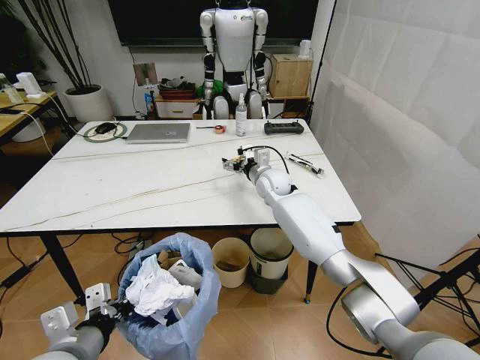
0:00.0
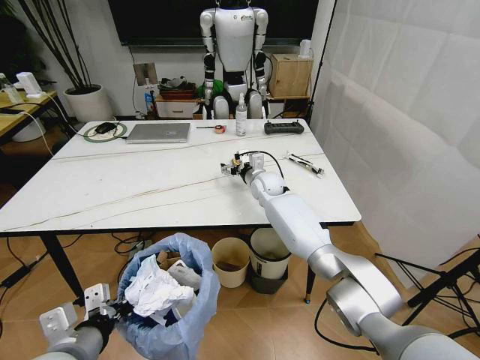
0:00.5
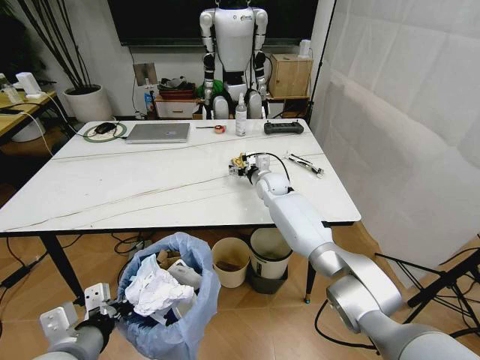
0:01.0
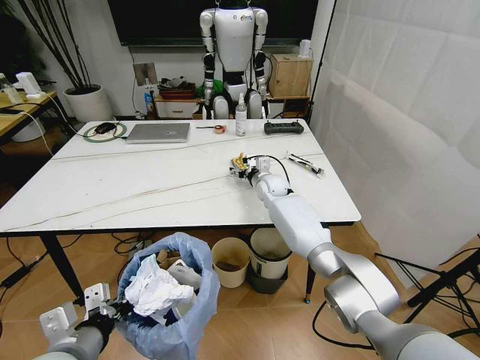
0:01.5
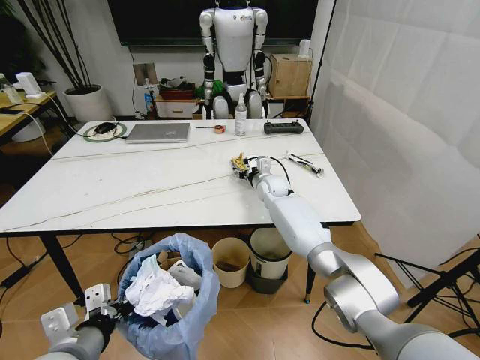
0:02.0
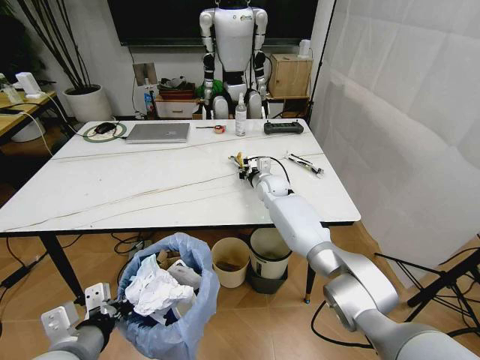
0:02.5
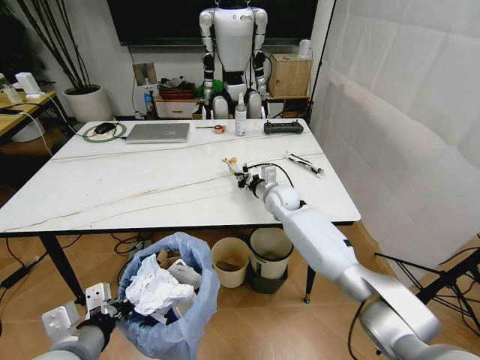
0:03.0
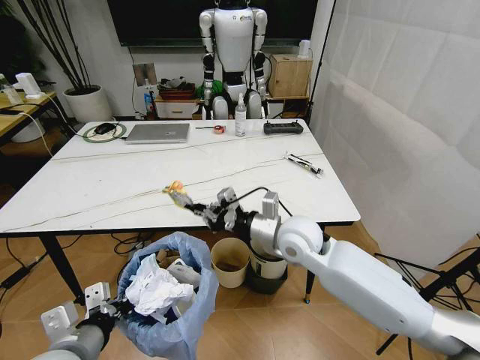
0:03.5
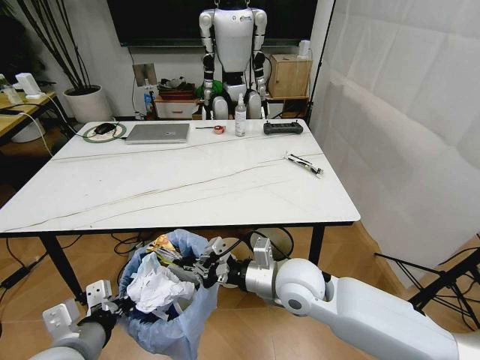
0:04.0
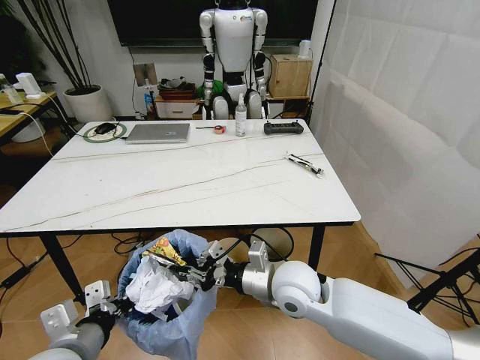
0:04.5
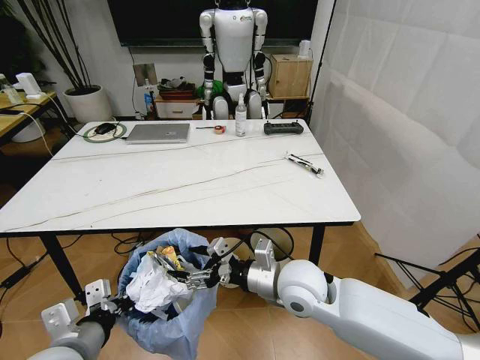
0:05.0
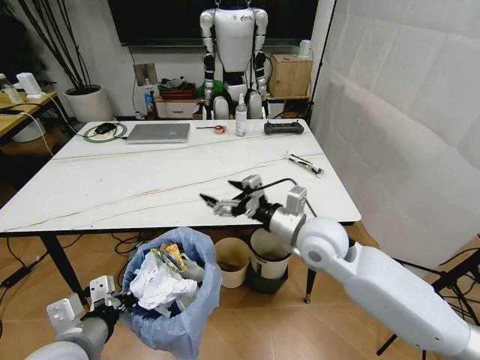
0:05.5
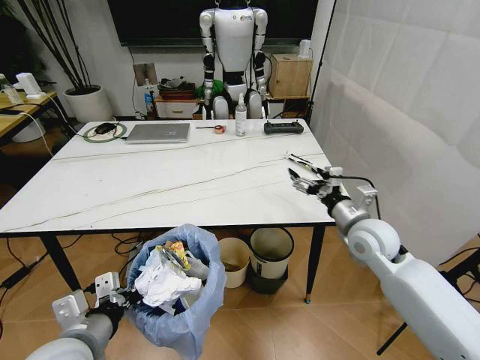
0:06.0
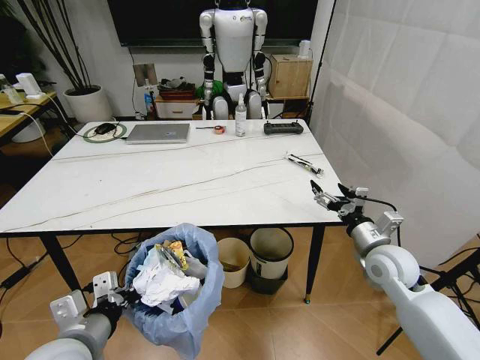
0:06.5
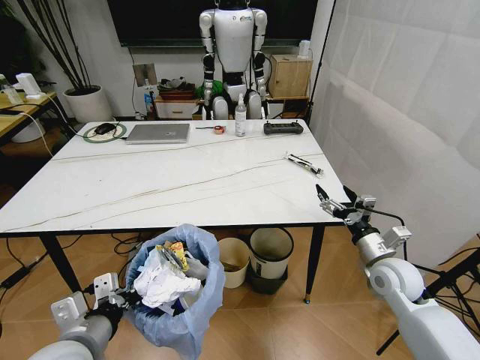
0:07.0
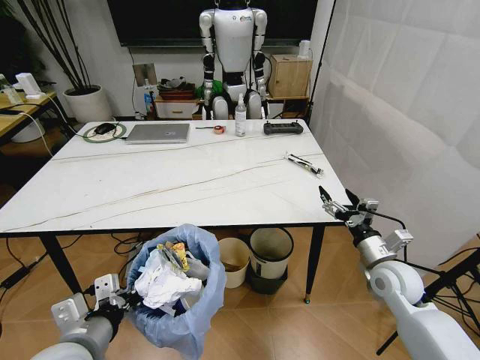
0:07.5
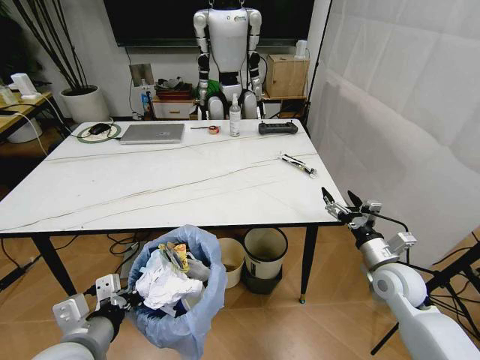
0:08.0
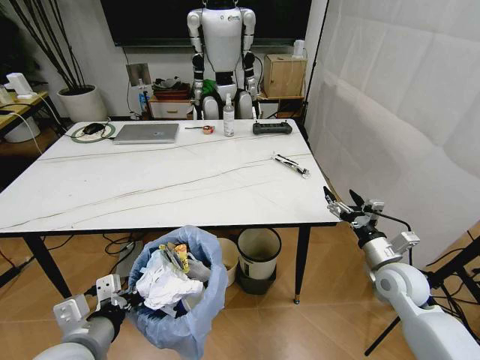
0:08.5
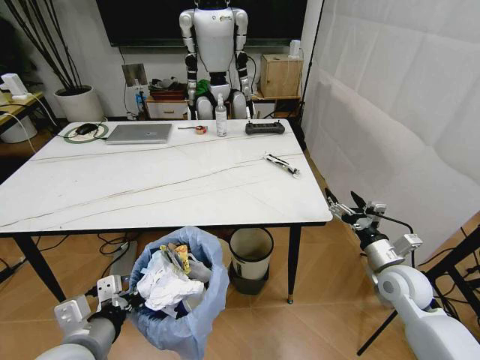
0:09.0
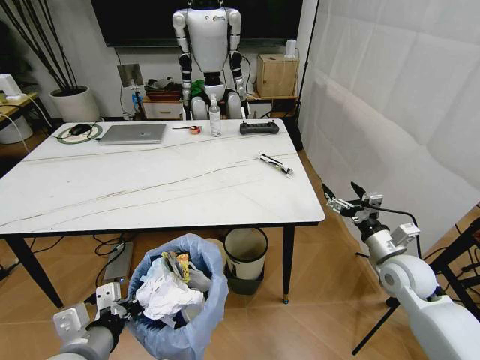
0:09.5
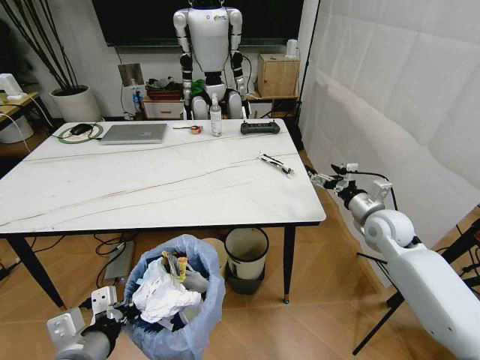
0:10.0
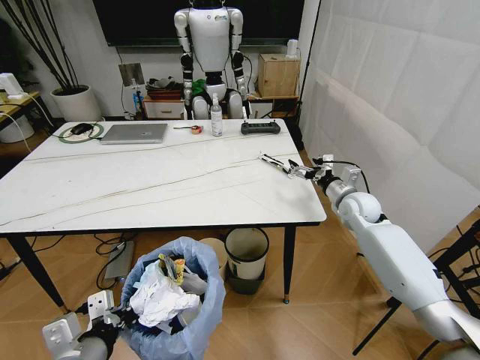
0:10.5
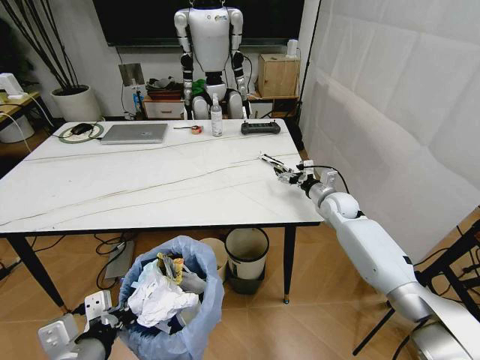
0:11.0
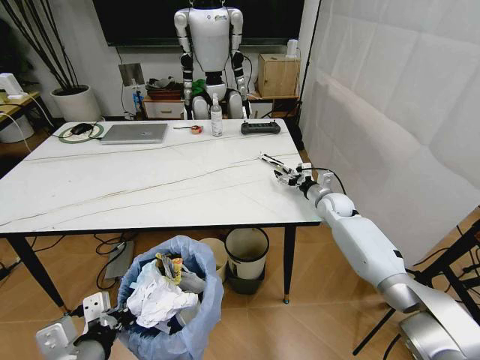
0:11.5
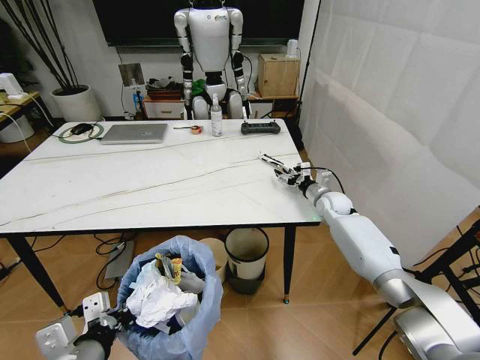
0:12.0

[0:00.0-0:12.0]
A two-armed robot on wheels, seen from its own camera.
Task of the whole recording: Pick up the trash bin and place the trash from the table into it.
0:00.0 to 0:02.0: The right gripper shifts approximately 5 cm downward.
0:02.0 to 0:04.0: The right gripper goes about 30 cm backward, and closes up.
0:04.0 to 0:06.0: The right gripper goes roughly 20 cm to the right and forward, and opens up.
0:06.0 to 0:08.0: The right gripper goes some 10 cm downward, to the right and backward.
0:08.0 to 0:10.0: The right gripper is displaced forward and upward by approximately 15 cm.
0:10.0 to 0:12.0: The right gripper is displaced forward, downward and to the left by approximately 15 cm.

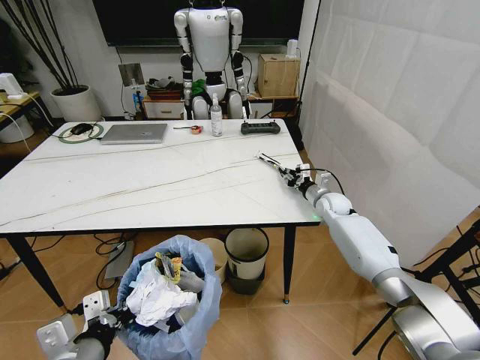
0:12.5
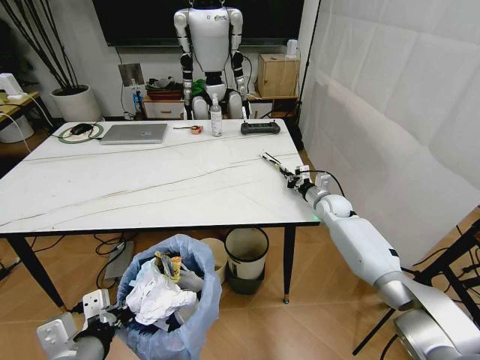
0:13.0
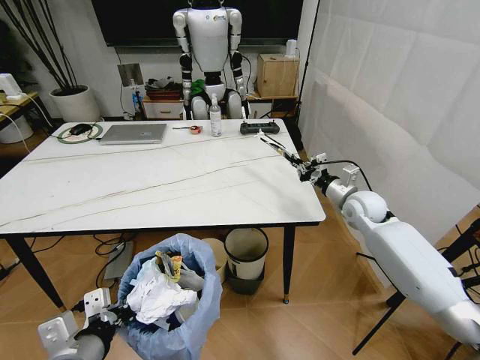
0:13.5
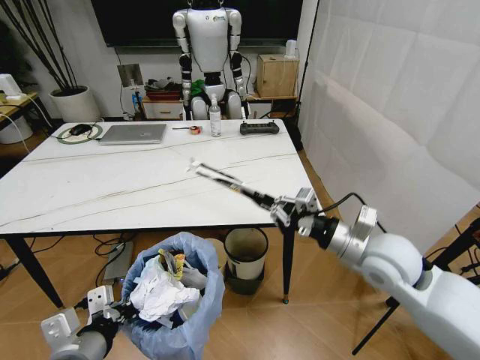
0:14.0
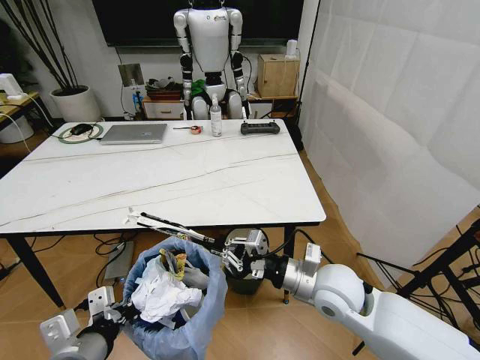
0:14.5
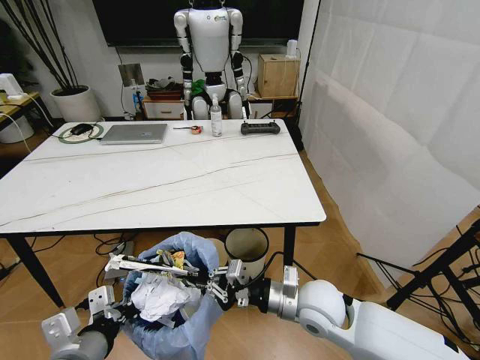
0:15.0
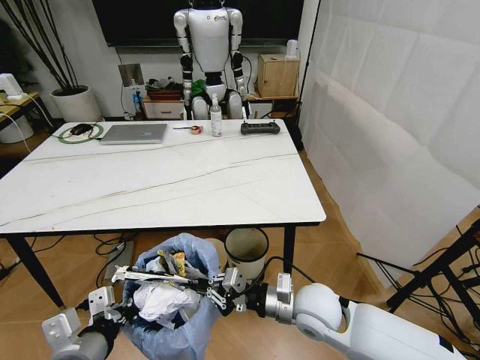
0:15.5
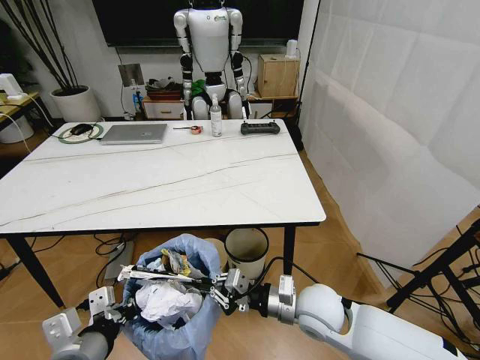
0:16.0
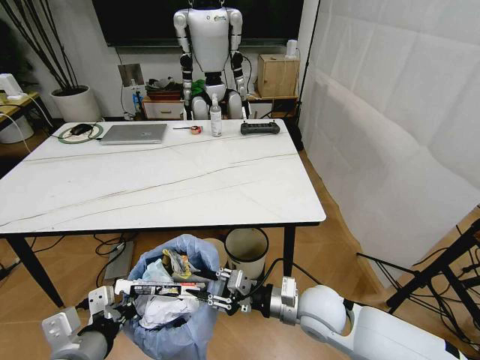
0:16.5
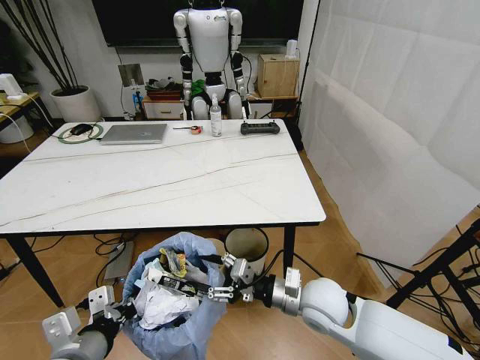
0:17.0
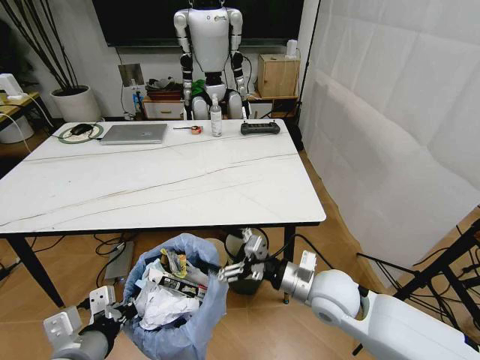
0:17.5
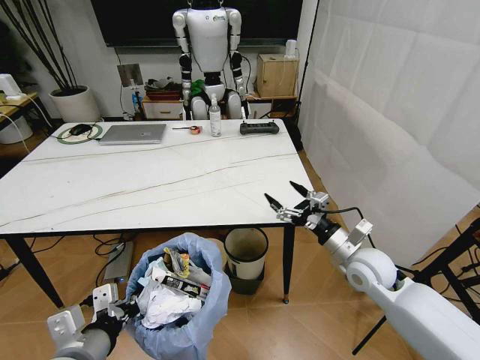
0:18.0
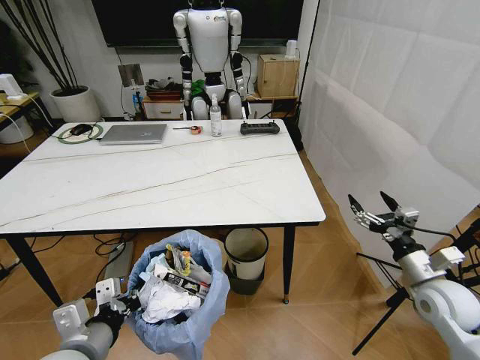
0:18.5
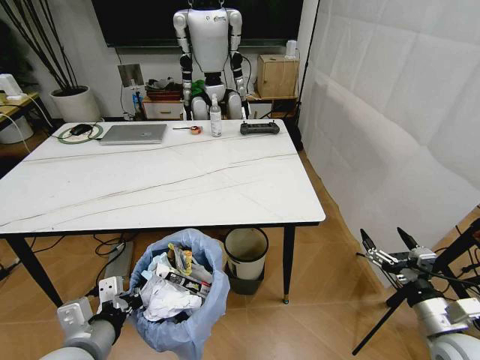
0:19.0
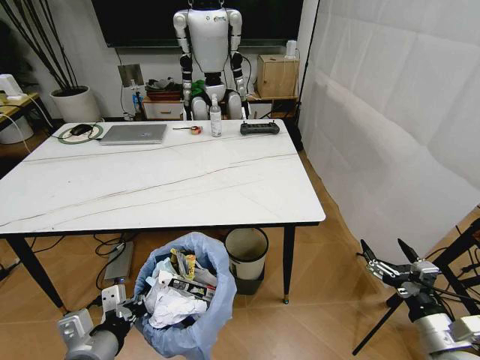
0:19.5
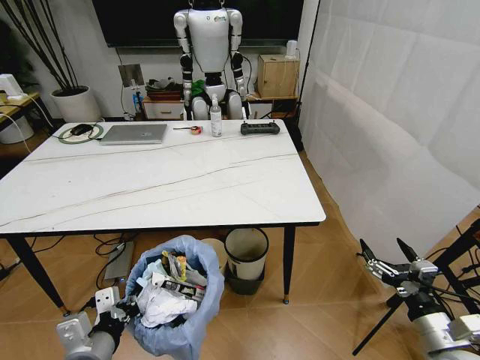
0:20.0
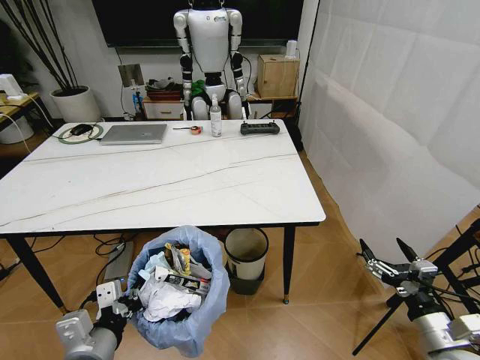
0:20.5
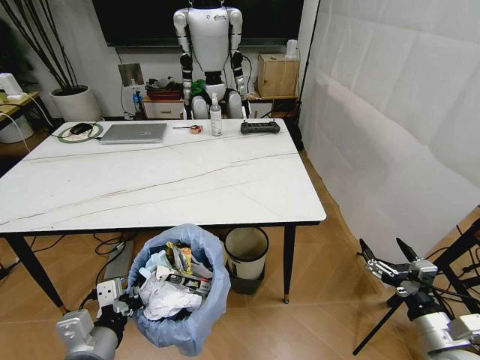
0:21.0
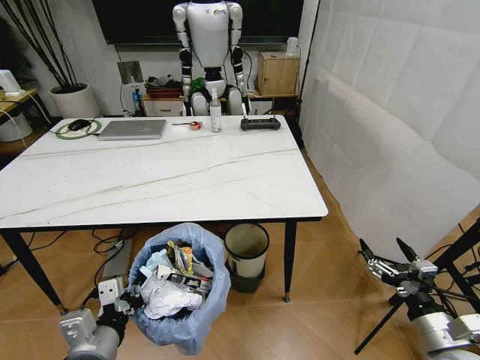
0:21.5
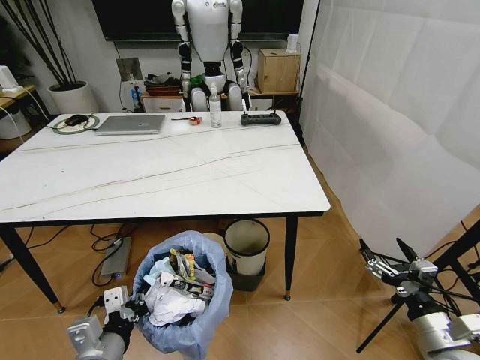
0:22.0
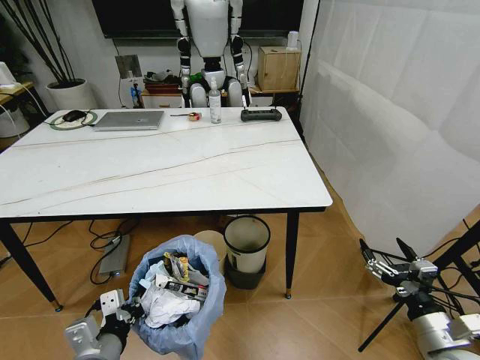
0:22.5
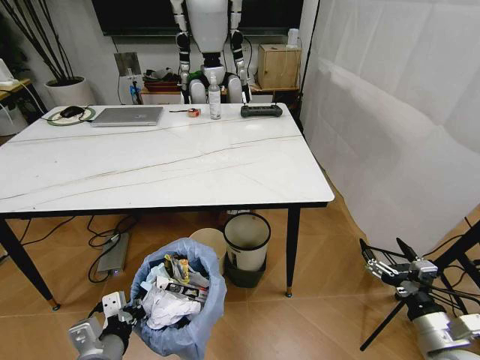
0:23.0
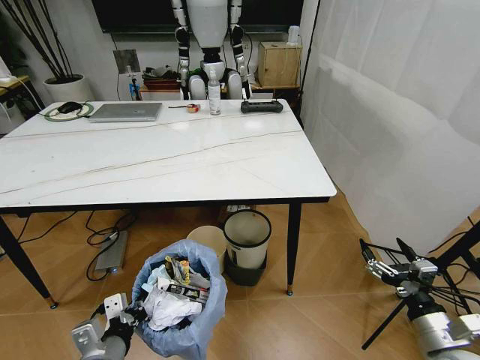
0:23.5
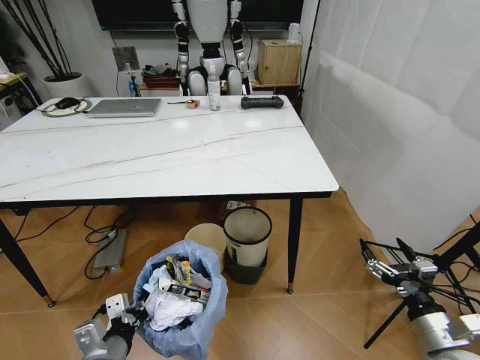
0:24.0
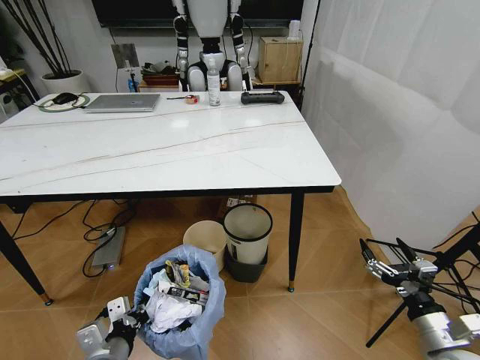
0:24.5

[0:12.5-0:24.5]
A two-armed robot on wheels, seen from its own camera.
Task of the whole recording: Pick up the trash bin and place the trash from the table into it.
0:12.5 to 0:14.5: The right gripper shifts approximately 30 cm backward, and closes its fingers.
0:14.5 to 0:16.5: The right gripper is displaced downward by roughly 5 cm, and opens its fingers.
0:16.5 to 0:18.5: The right gripper goes some 25 cm to the right, and opens.
0:18.5 to 0:20.5: The right gripper travels backward by roughly 15 cm.

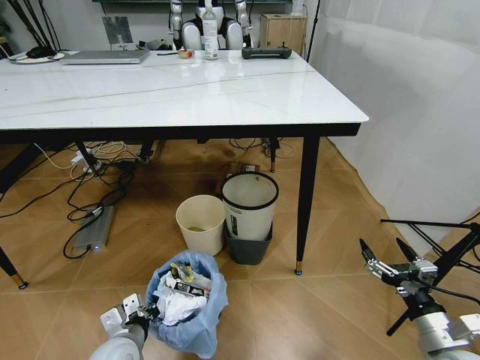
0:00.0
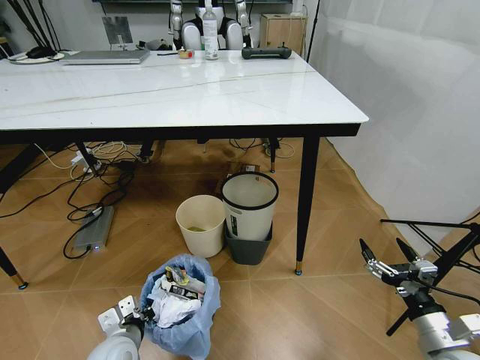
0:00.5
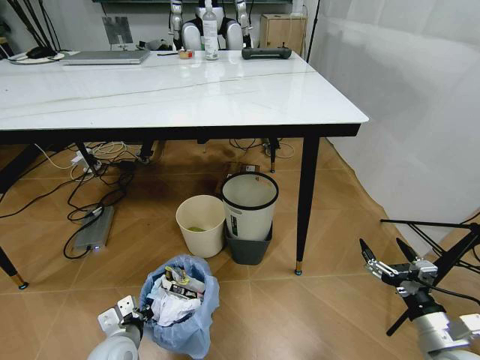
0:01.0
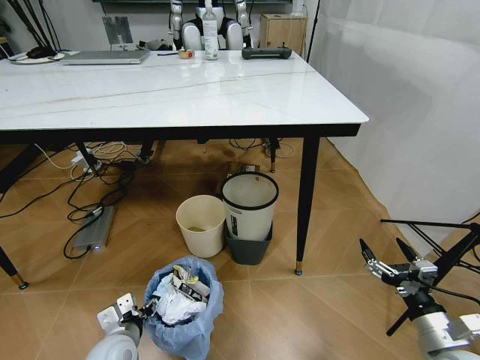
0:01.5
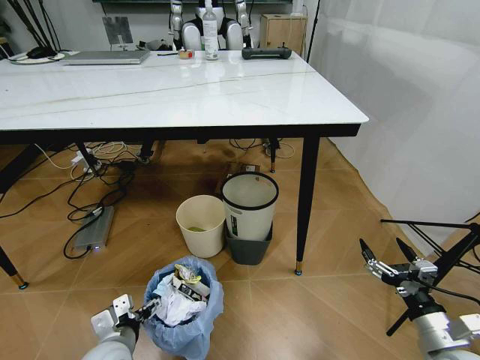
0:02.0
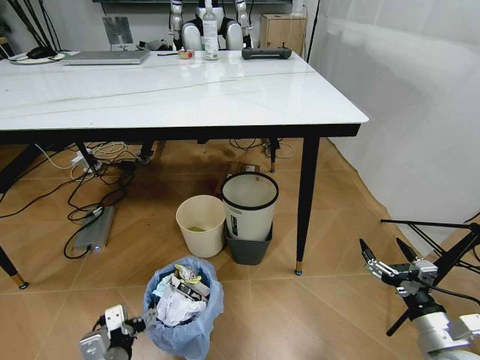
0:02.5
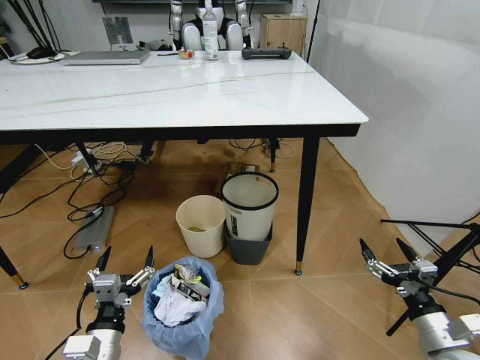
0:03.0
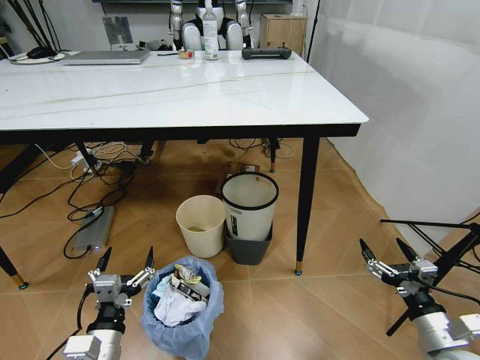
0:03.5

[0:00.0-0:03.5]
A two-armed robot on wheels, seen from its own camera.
Task of the whole recording: Pick up the trash bin and place the trash from the table into it.
0:00.0 to 0:02.0: The left gripper opens up.
0:02.0 to 0:03.5: The left gripper goes about 5 cm backward.
